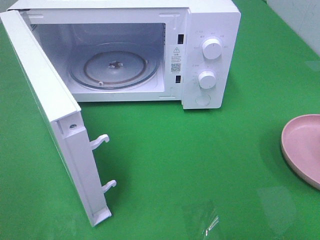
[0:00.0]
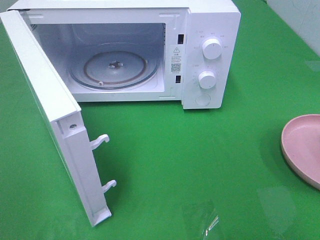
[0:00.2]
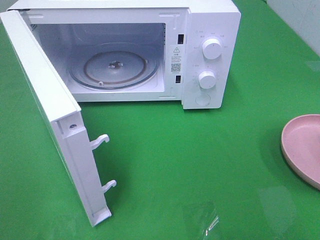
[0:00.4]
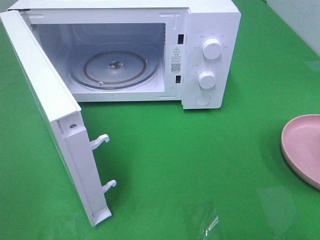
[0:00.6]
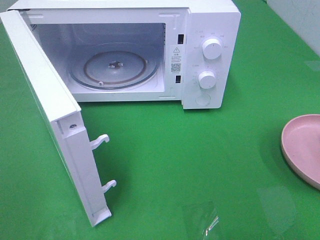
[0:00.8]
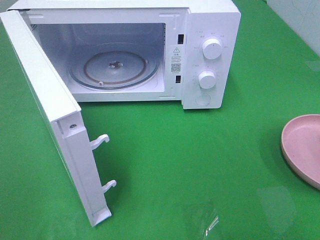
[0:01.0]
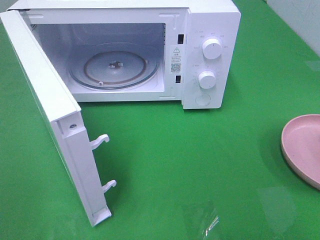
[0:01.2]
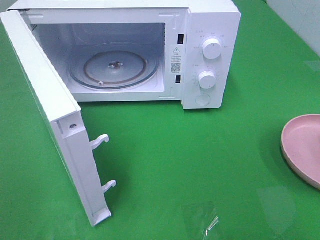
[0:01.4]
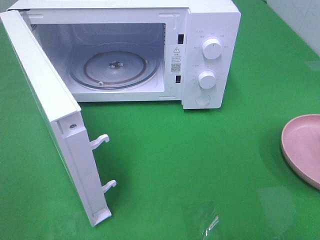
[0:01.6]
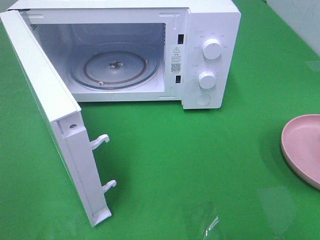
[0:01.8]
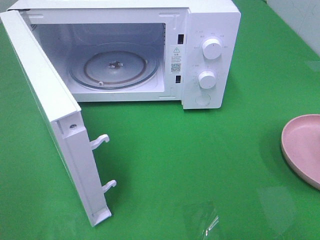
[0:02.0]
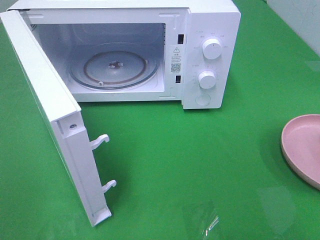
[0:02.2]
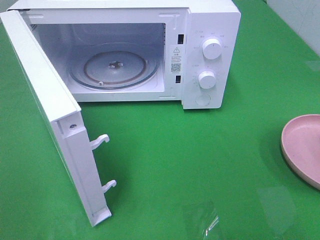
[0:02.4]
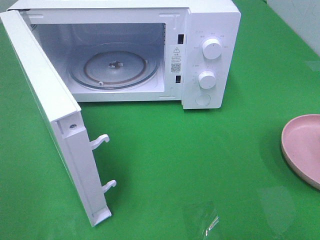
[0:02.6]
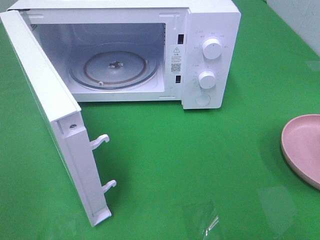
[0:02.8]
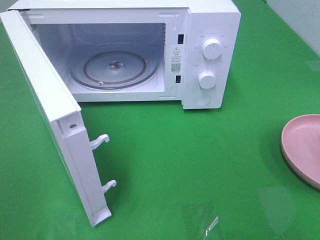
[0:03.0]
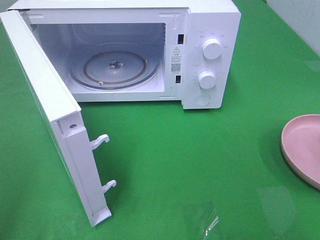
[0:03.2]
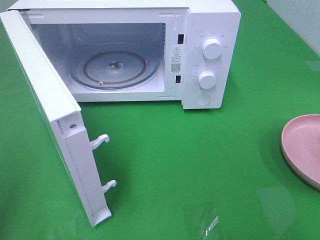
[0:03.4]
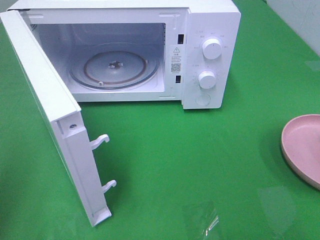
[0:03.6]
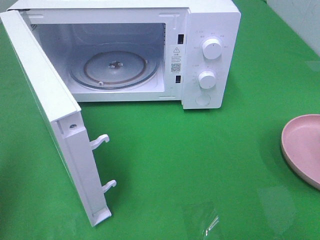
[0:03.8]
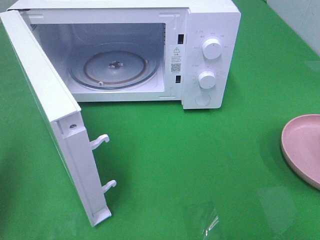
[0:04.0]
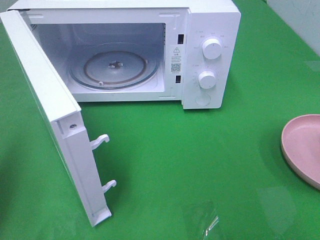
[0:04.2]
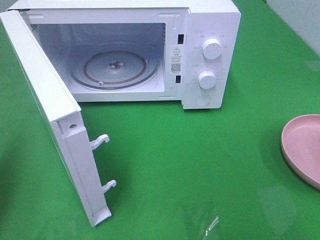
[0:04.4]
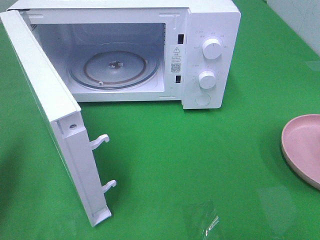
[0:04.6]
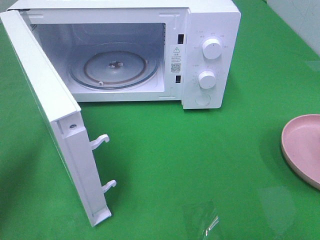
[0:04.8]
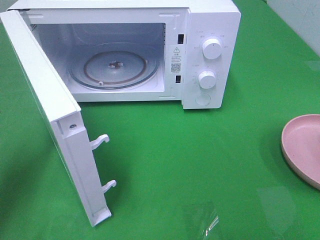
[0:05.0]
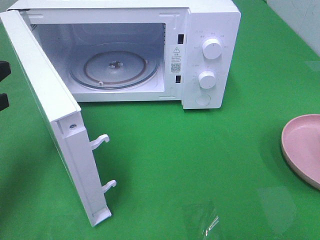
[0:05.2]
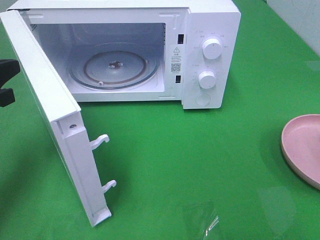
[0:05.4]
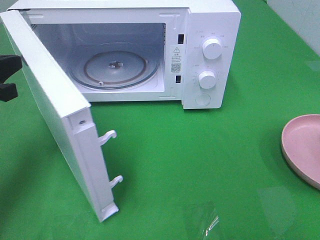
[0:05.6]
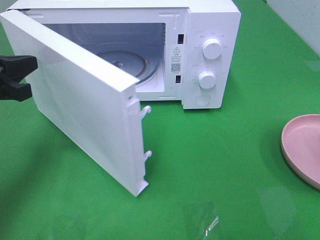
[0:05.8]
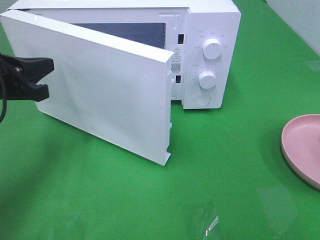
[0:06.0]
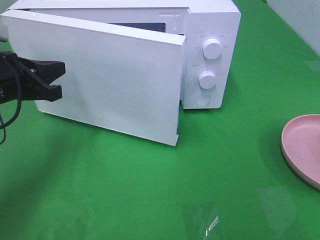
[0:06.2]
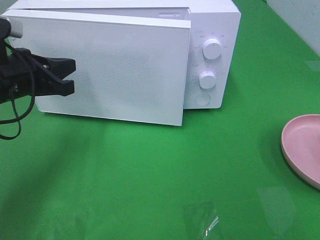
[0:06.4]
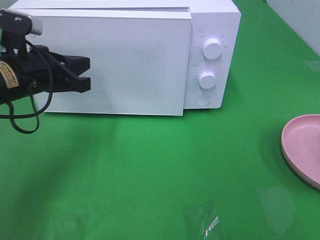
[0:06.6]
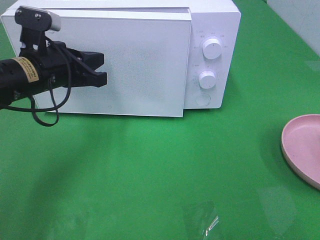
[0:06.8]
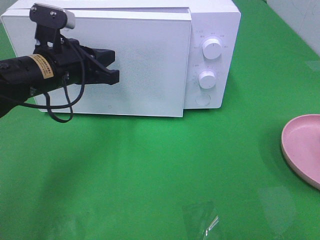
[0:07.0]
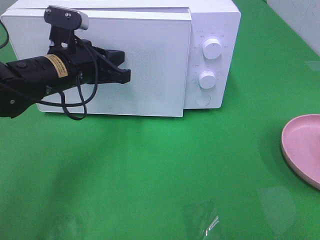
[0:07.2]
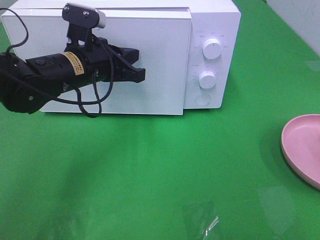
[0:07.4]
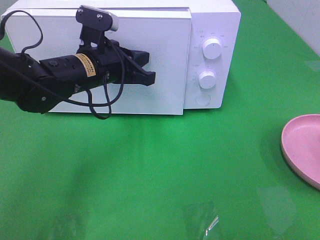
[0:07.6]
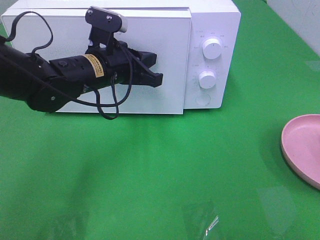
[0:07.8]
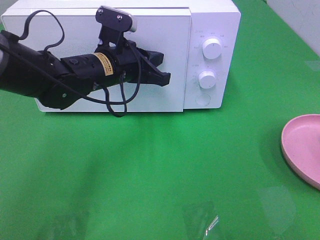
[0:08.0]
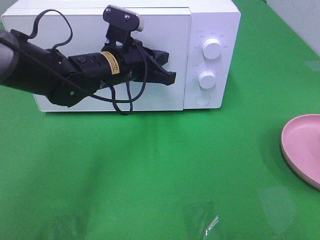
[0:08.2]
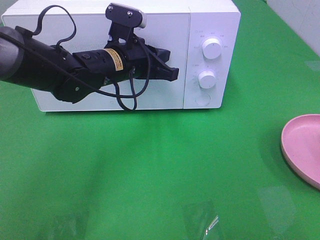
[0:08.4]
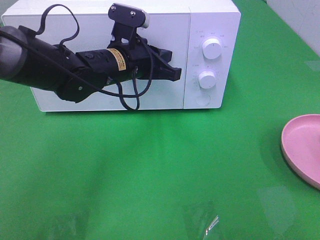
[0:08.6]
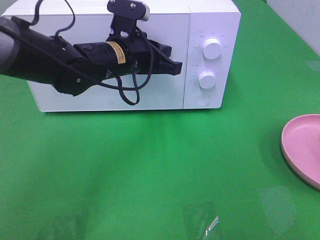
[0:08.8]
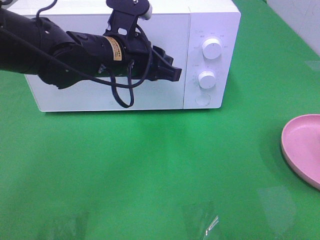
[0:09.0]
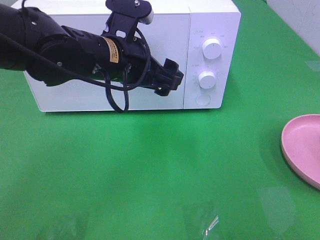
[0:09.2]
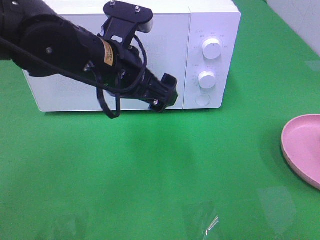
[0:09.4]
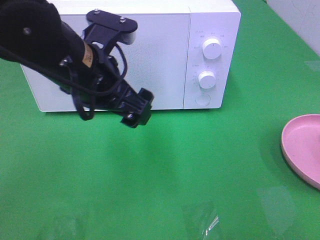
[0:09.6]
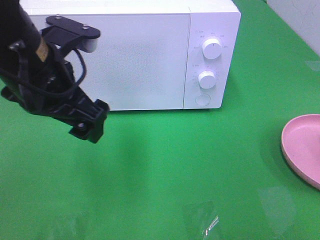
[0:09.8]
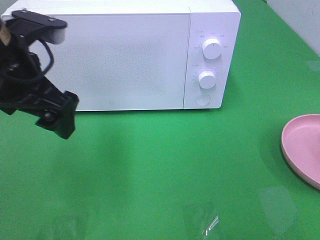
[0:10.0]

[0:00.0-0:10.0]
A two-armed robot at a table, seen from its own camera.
Task of the whole recording: Heat the burger.
Step, 0:00.0 to 0:08.8: Left hand: close the microwave door.
0:01.4 to 0:02.8: Both grippers stay about where they are.
0:02.8 to 0:04.2: The left gripper goes about 15 cm forward, and closes its fingers.
0:04.2 to 0:05.8: The left gripper heads forward, to the right and downward, covering about 15 cm.
0:05.8 to 0:07.2: The left gripper travels to the right and forward by some 15 cm.
0:07.2 to 0:08.6: The left gripper moves to the right, some 10 cm.
0:08.6 to 0:10.0: The left gripper shifts about 20 cm to the left, backward and upward, and opens up.

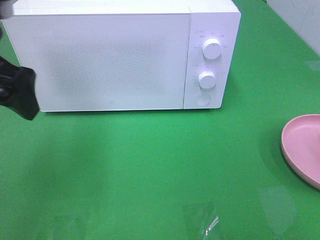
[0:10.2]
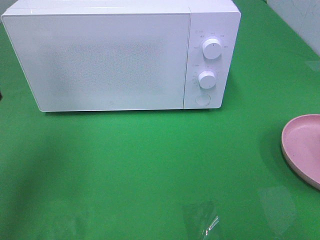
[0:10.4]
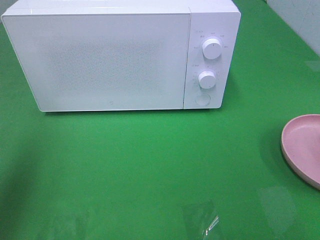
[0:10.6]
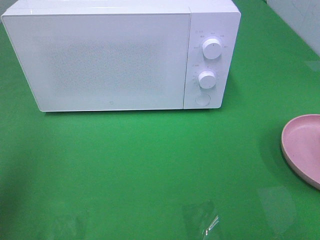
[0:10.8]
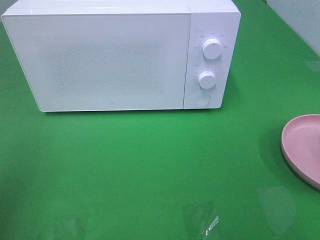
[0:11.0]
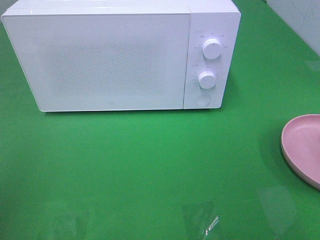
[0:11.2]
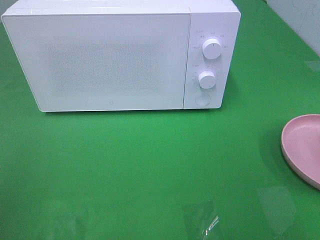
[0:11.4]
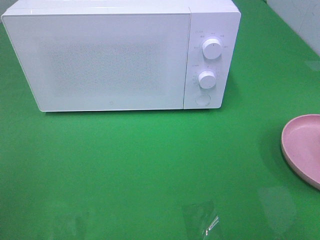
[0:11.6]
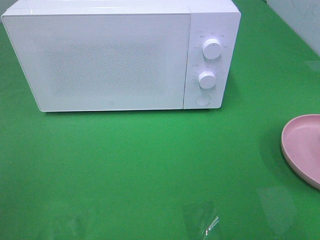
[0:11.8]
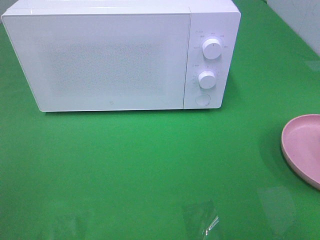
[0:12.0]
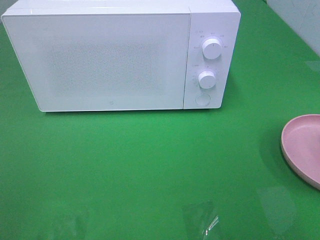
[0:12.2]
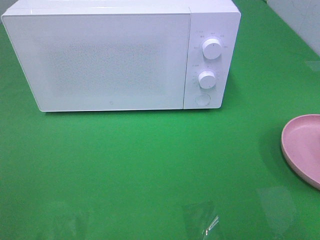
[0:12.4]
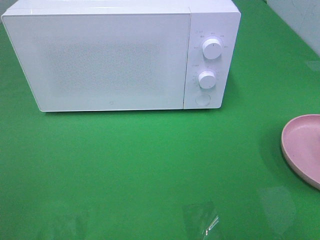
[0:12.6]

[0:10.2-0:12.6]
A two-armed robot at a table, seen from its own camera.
Task of the whole recording: Heat the burger.
0:10.2 to 0:11.4: The left gripper is displaced backward and to the left by approximately 20 cm.

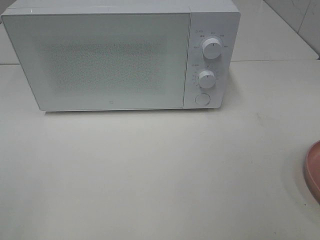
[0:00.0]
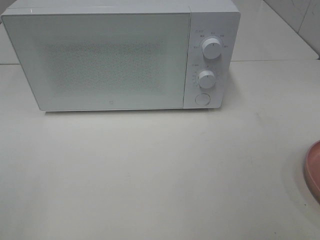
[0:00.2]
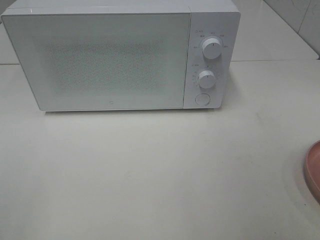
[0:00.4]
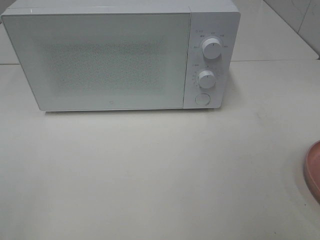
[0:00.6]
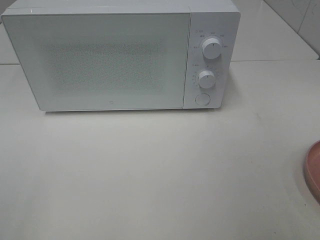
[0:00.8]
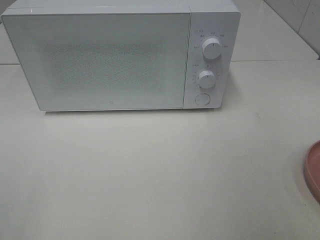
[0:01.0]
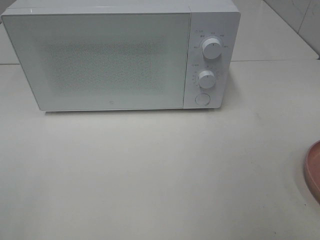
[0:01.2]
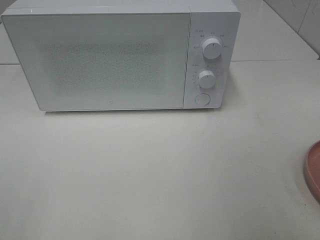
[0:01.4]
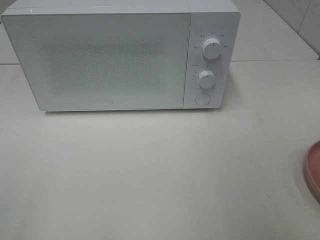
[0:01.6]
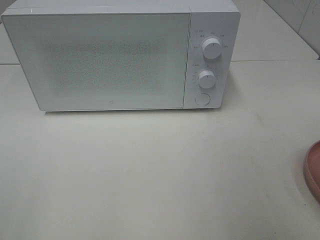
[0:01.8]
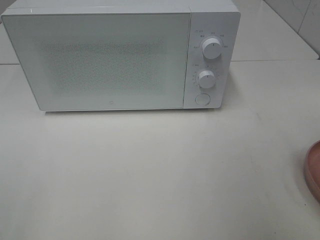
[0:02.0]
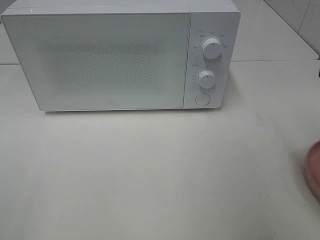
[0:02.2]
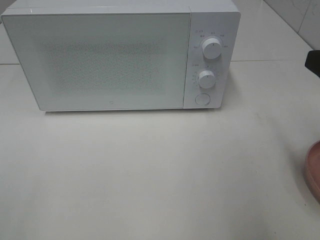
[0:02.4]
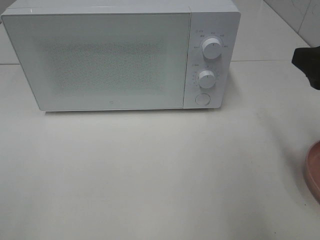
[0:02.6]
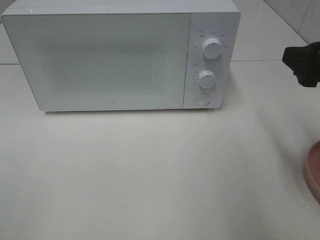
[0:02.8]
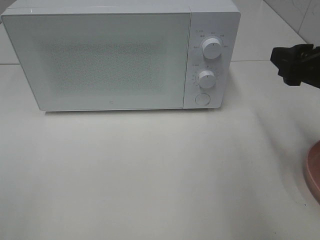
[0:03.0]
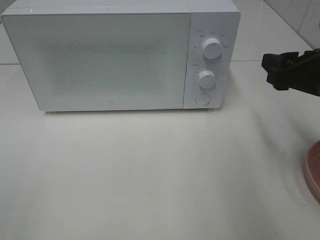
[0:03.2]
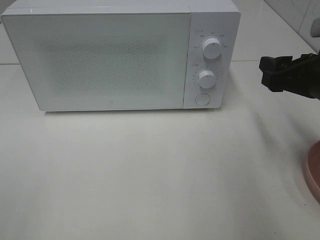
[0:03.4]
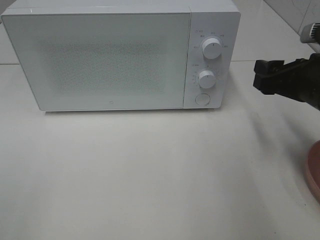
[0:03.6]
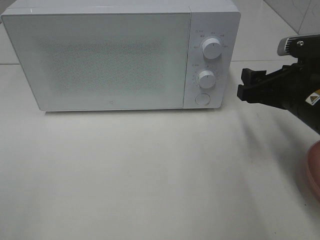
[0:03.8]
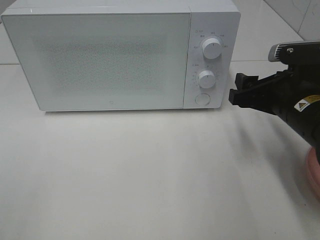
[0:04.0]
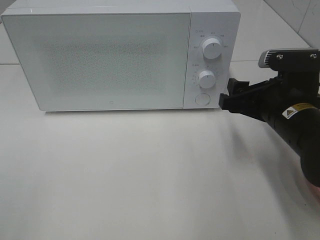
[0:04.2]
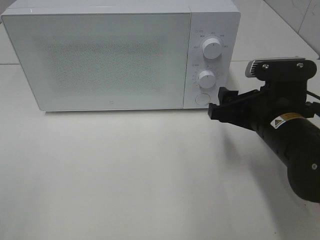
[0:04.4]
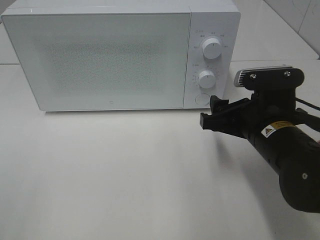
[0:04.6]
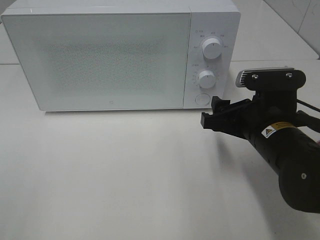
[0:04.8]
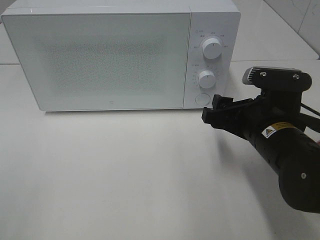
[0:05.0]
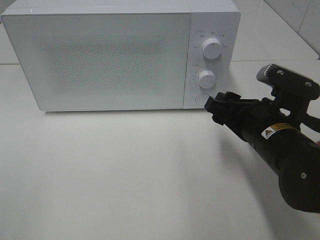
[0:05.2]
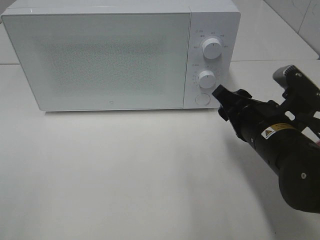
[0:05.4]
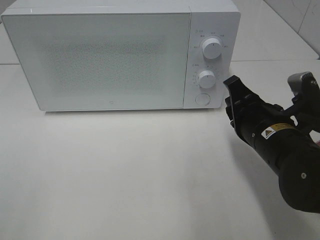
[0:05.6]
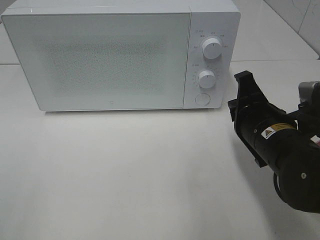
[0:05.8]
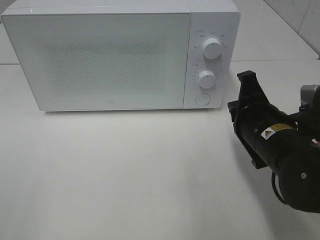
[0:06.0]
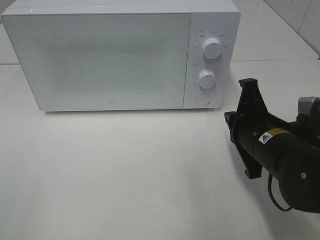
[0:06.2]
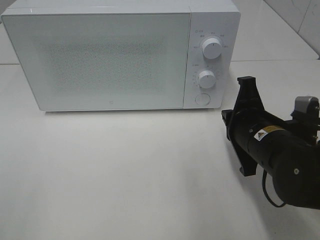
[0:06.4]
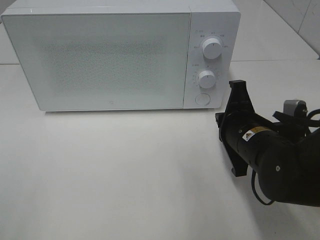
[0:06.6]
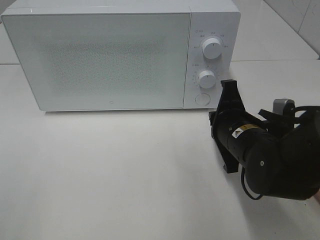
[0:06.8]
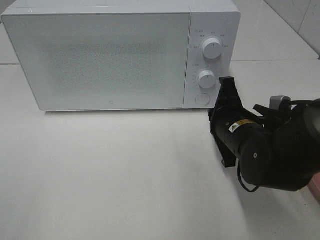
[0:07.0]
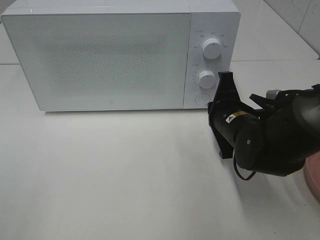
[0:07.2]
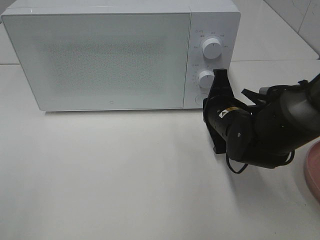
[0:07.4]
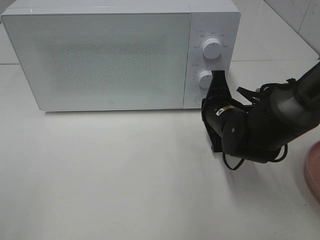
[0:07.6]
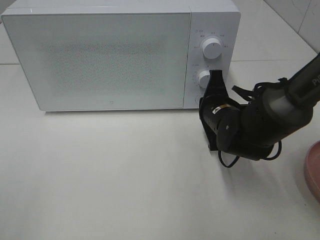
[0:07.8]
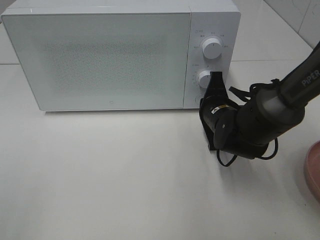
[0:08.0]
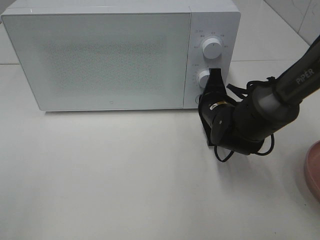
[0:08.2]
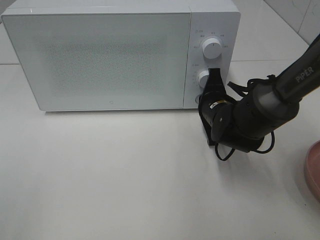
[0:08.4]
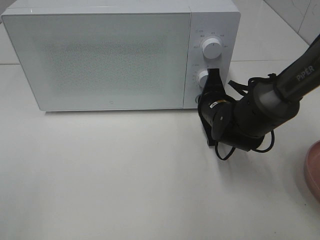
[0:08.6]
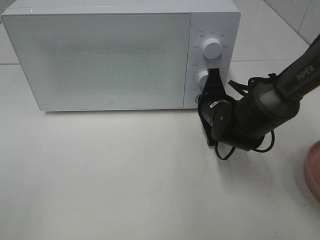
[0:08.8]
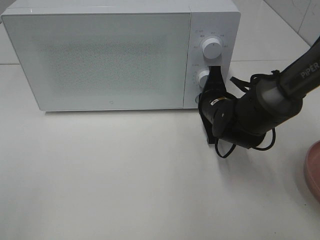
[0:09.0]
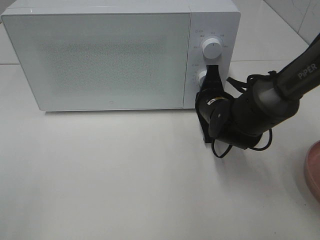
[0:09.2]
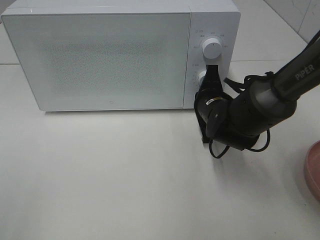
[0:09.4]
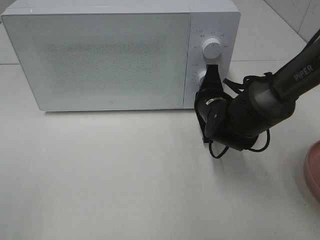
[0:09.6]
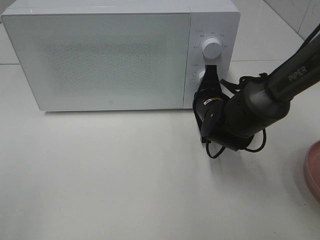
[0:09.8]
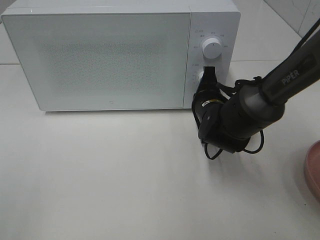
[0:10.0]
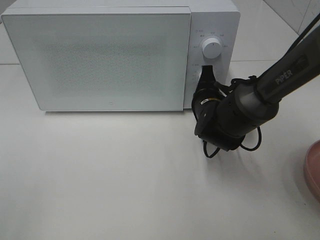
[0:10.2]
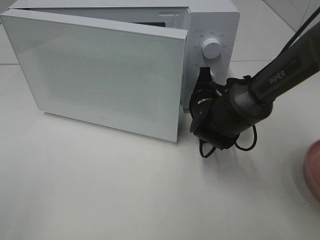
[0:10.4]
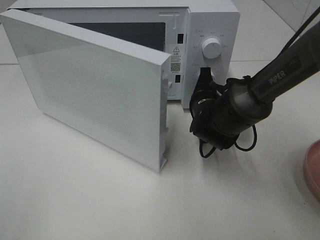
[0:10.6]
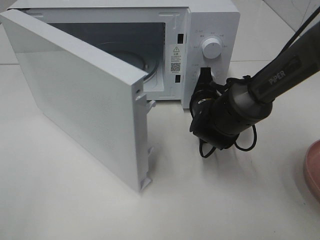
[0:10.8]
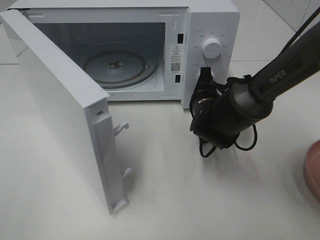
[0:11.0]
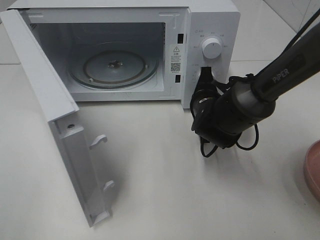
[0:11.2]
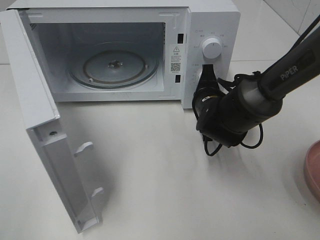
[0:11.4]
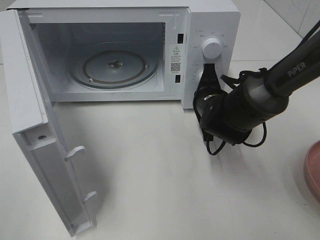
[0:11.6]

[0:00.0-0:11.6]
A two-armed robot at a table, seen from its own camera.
Task of the whole recording: Heat the burger.
0:01.4 to 0:02.8: The right gripper shifts roughly 15 cm forward.
0:02.8 to 0:04.4: The right gripper shifts approximately 15 cm downward and to the left.
0:04.4 to 0:05.8: The right gripper closes.
0:05.8 to 0:07.2: The right gripper goes some 5 cm forward.
0:07.2 to 0:08.8: The right gripper shifts about 5 cm forward.
0:08.8 to 0:10.2: The grippers move only a little.
